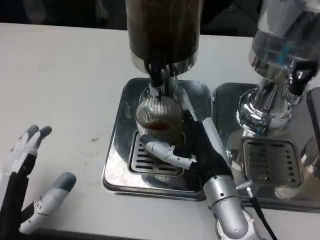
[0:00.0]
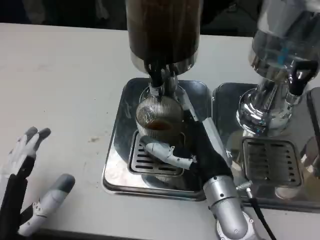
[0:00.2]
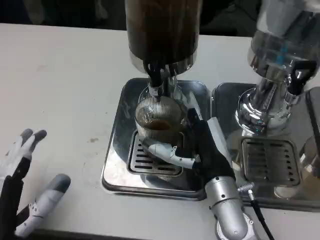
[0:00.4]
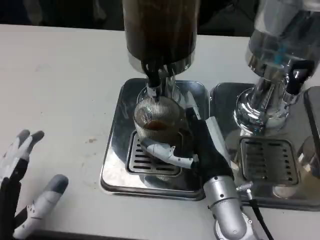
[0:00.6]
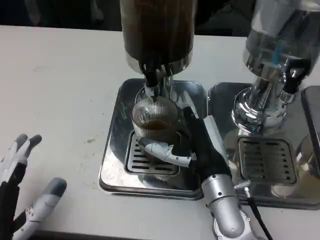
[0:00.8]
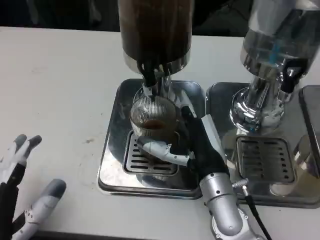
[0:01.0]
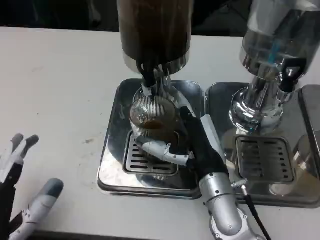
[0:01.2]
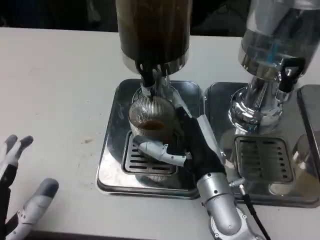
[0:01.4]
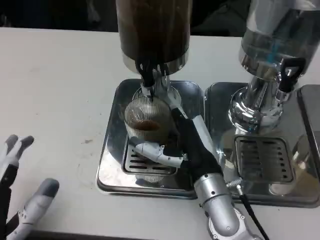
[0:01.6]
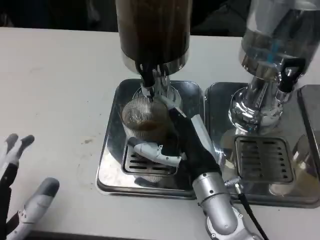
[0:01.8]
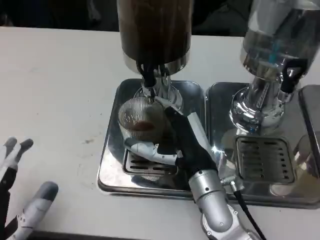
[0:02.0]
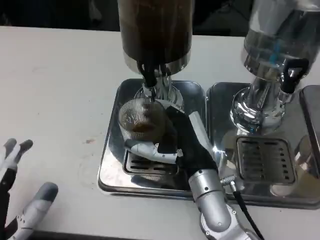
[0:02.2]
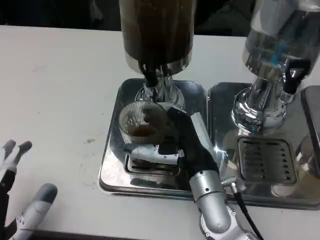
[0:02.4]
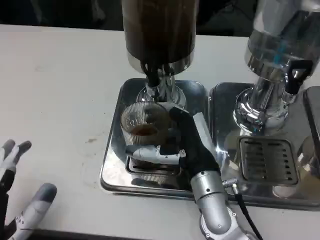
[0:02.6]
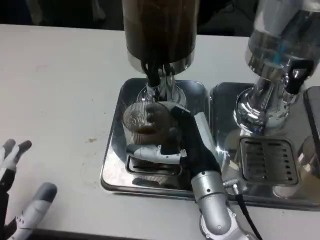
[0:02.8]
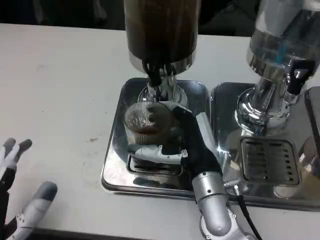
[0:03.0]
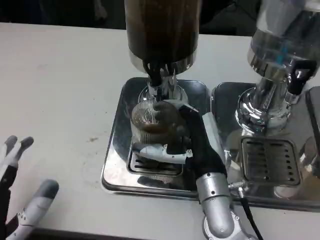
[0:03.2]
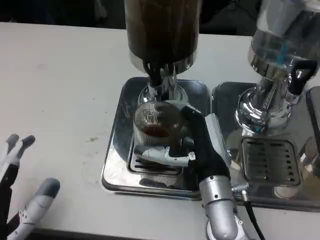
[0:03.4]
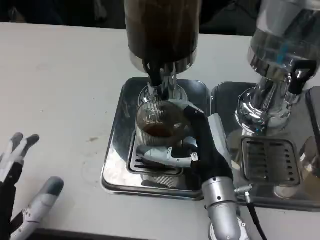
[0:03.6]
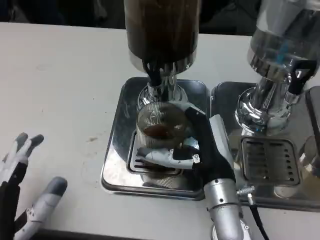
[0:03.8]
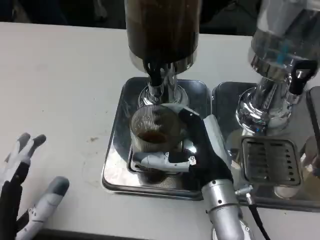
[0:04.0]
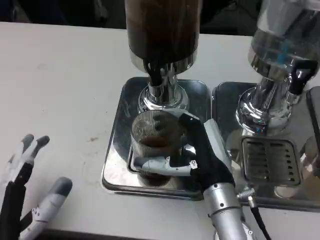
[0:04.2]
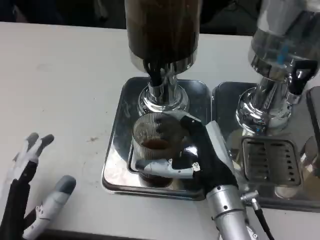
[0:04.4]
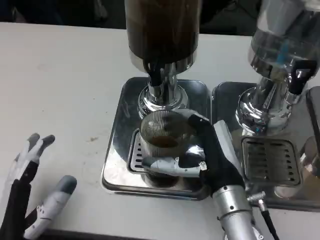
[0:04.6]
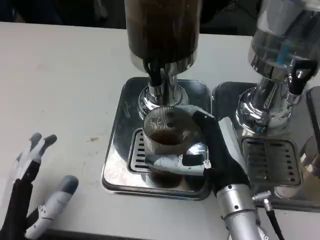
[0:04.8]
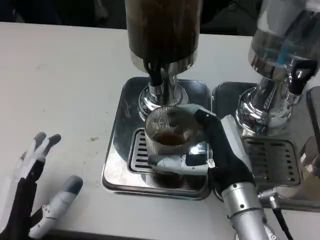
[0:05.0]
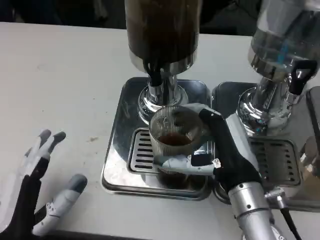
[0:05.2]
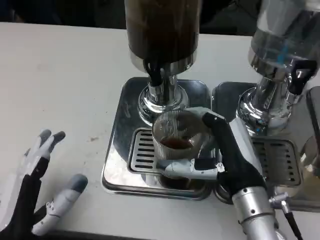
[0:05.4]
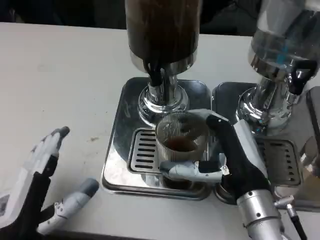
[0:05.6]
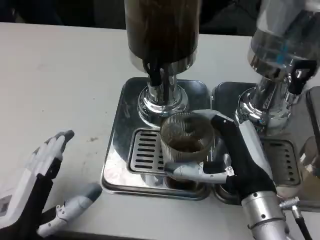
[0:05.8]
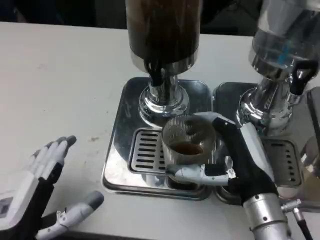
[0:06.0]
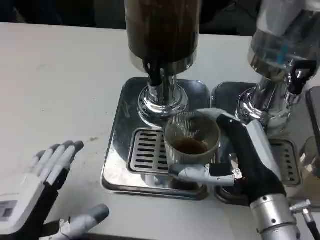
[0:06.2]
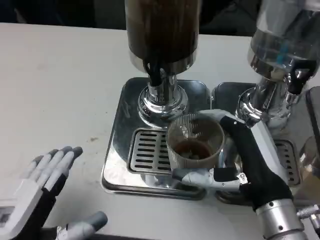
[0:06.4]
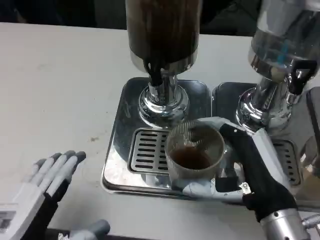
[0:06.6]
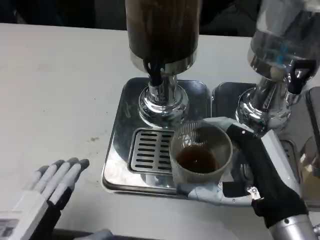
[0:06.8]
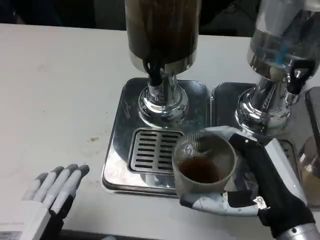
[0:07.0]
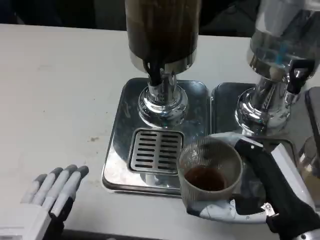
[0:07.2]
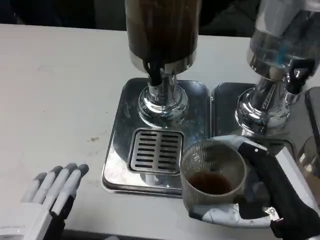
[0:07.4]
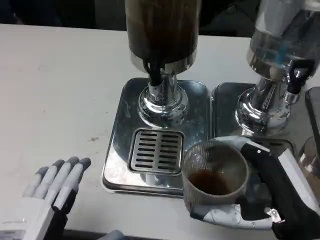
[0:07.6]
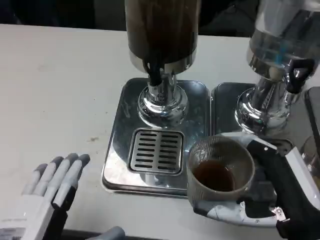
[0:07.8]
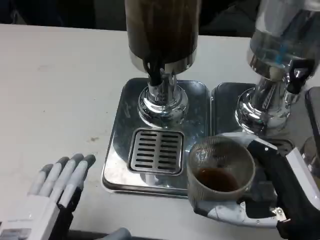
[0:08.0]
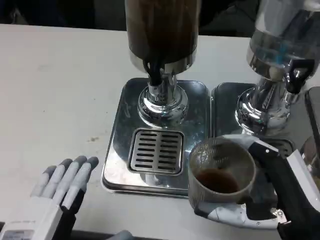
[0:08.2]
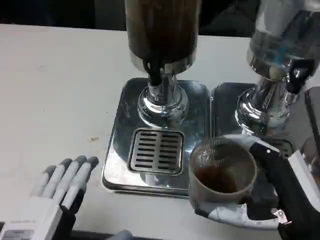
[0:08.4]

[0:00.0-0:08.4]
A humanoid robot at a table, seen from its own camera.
Task of the whole recording: Grasp the cup under the faucet to collect the drink, then remove the cup.
0:04.2 to 0:05.6: The right hand shifts by approximately 5 cm.
0:05.6 to 0:07.0: The two hands go some 5 cm backward.
0:07.0 to 0:08.4: The hands make only small movements.

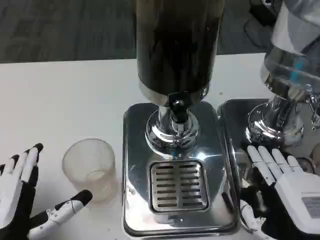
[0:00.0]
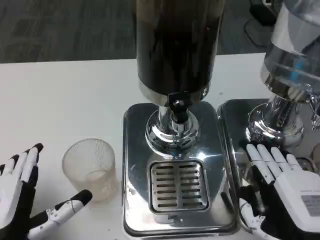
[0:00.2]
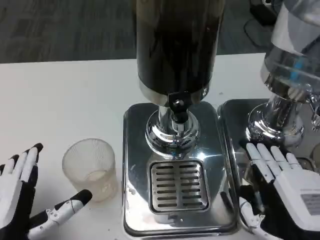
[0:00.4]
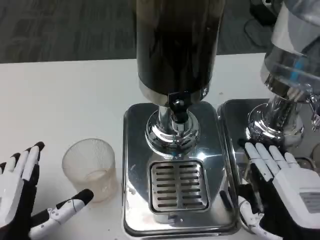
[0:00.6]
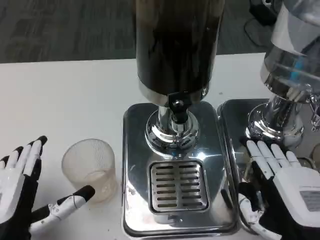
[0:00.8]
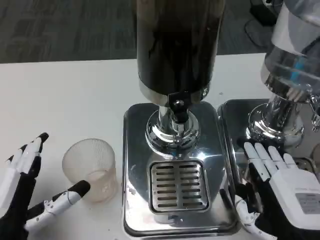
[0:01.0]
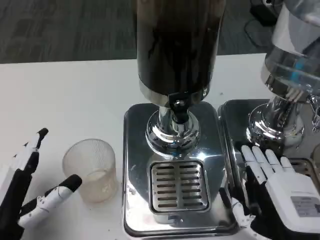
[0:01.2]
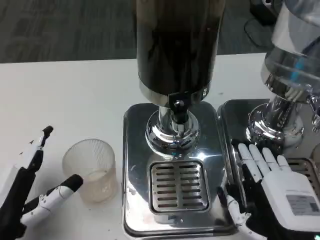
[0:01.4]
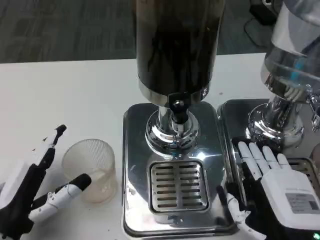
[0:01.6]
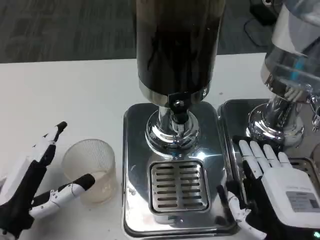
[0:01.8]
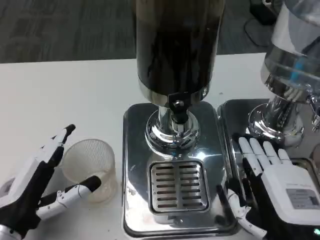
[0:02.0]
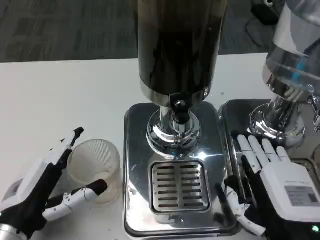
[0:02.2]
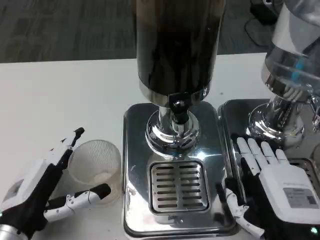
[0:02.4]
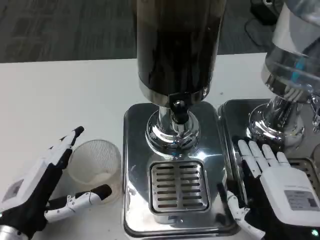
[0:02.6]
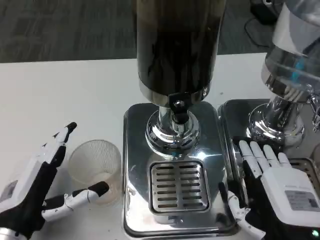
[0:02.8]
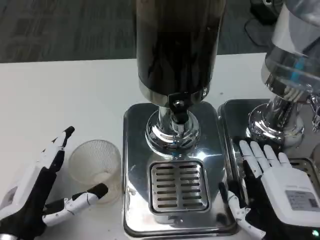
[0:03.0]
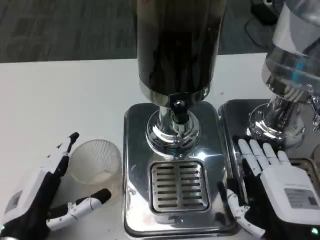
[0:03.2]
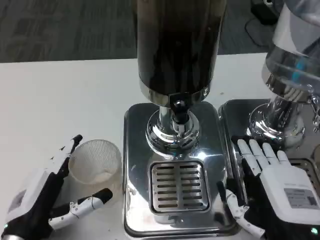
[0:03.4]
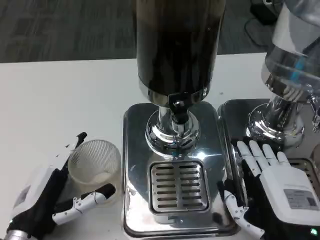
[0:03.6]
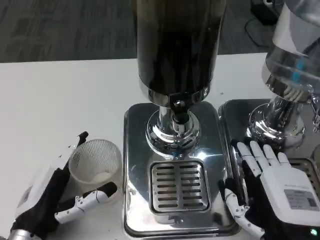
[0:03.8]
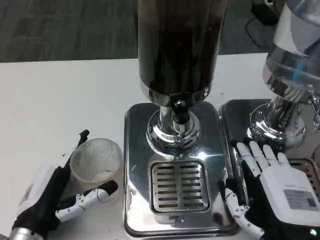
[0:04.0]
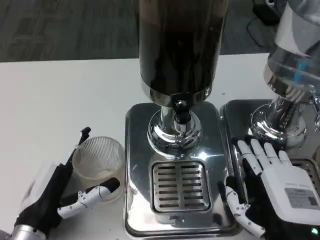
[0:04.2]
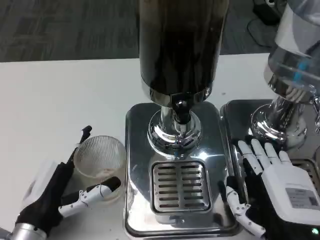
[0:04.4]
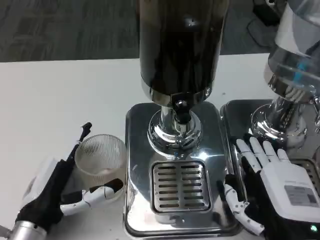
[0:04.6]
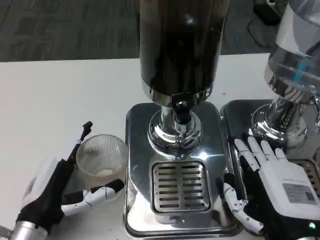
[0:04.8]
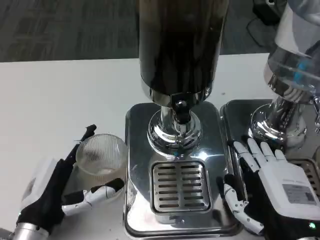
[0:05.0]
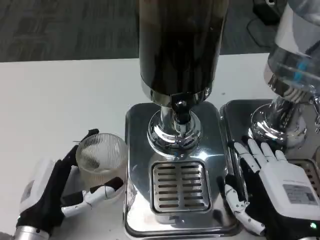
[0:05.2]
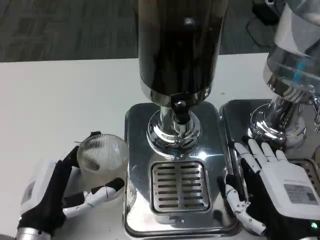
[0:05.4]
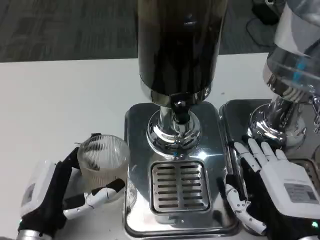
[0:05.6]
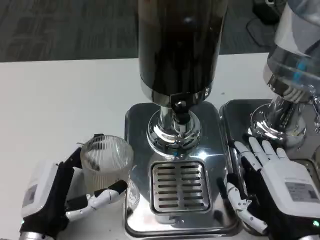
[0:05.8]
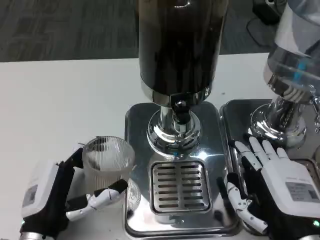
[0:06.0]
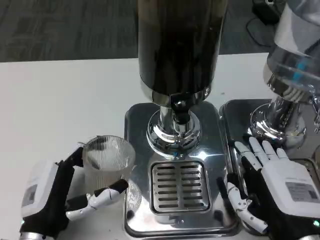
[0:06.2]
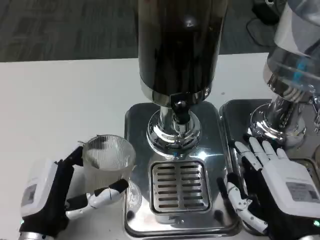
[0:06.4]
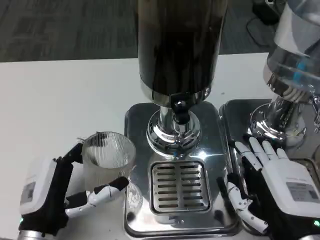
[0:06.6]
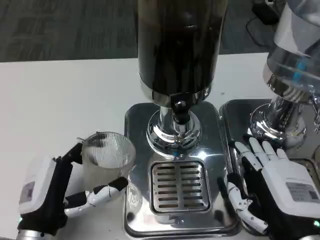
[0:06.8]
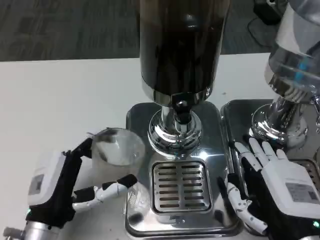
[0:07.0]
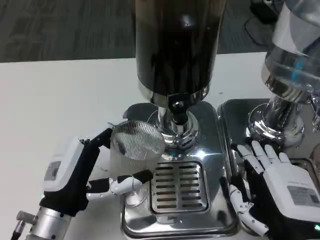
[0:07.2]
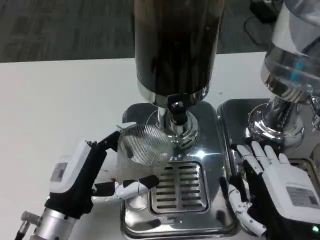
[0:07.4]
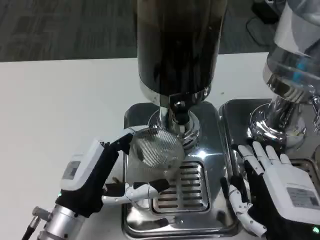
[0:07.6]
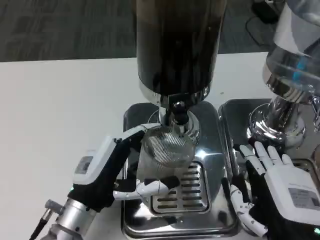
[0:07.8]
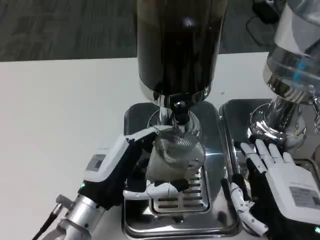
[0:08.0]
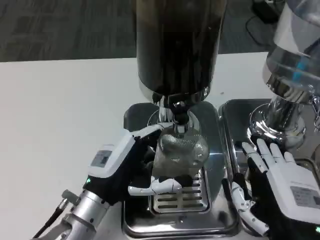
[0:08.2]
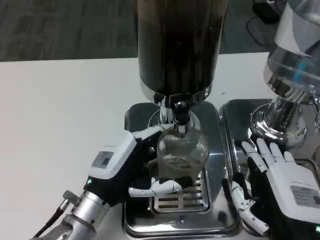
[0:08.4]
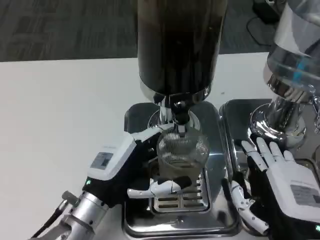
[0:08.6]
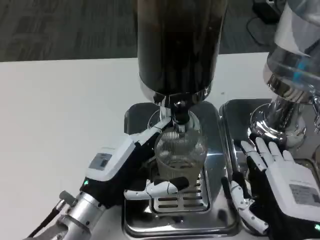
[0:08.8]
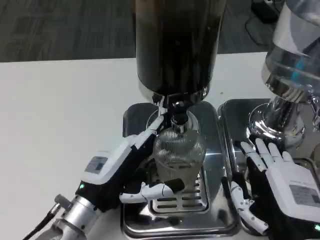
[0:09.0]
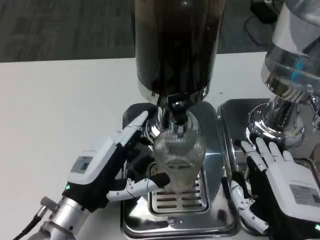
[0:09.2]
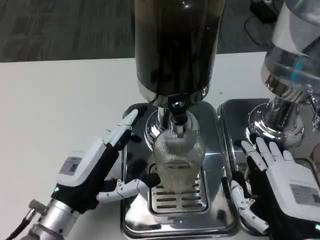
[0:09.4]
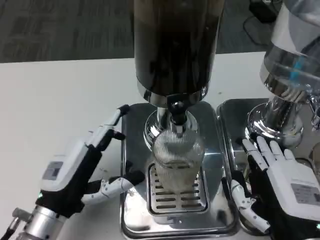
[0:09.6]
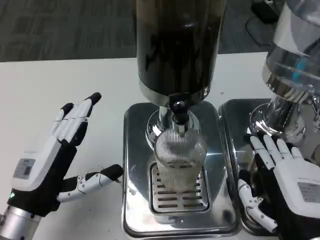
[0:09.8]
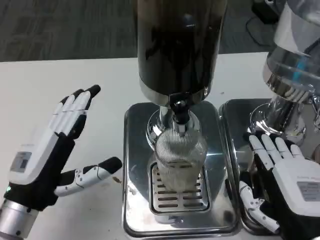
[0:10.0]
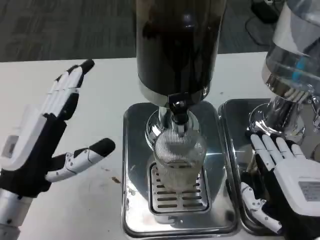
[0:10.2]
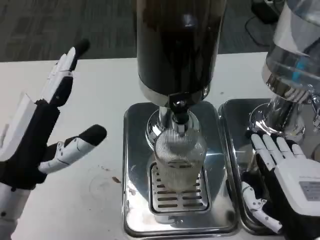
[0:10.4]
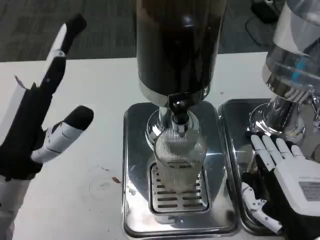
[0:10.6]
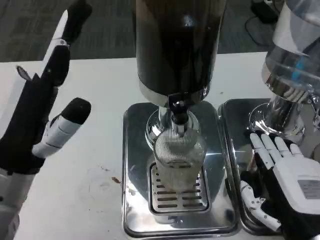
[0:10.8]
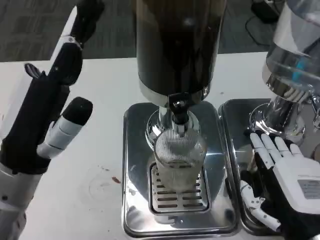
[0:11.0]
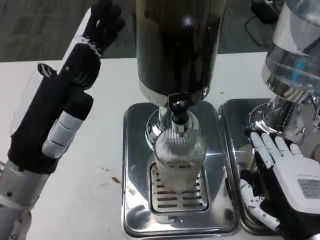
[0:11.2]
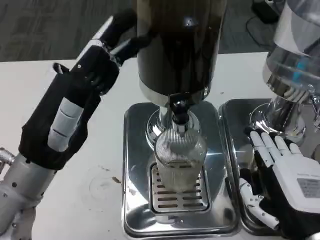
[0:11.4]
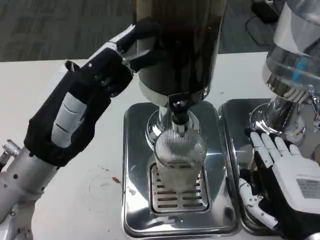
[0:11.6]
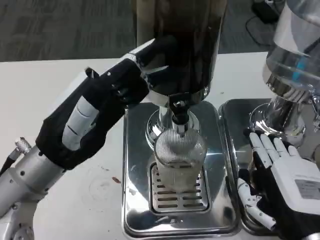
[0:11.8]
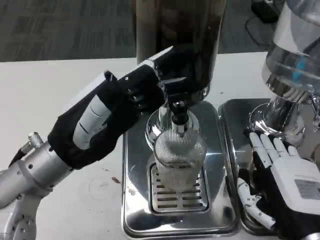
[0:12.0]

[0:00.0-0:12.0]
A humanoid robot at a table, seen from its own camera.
Task of the whole recording: Grasp the cup under the faucet to collect the drink, then remove the cup.
0:00.0 to 0:01.6: The left hand ends up roughly 5 cm from where it was.
0:01.6 to 0:03.0: The hands make only small movements.
0:04.4 to 0:06.0: The hands make only small movements.
0:06.0 to 0:07.6: The left hand moves some 5 cm.
0:09.0 to 0:10.4: The left hand is displaced upward and to the left by roughly 10 cm.
0:10.4 to 0:12.0: The left hand shifts by roughly 5 cm.

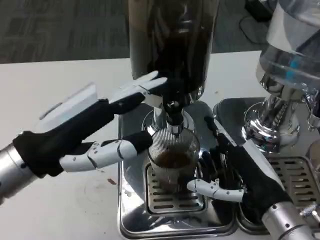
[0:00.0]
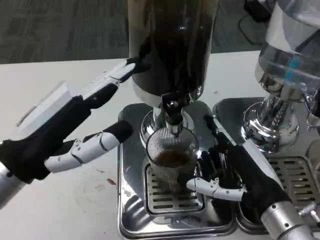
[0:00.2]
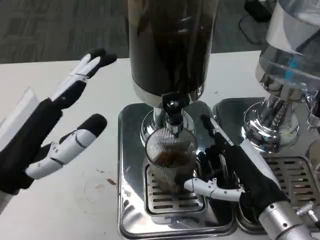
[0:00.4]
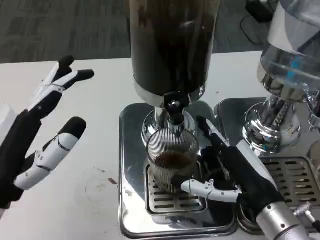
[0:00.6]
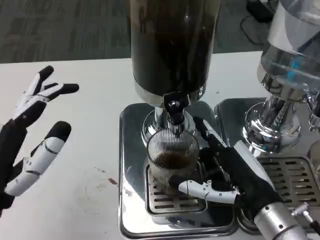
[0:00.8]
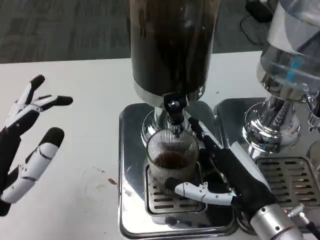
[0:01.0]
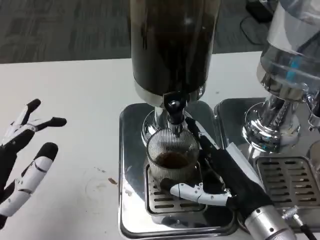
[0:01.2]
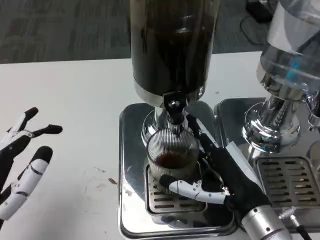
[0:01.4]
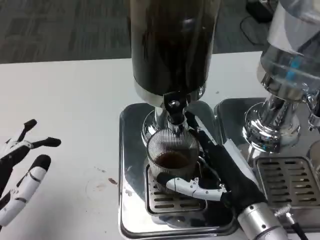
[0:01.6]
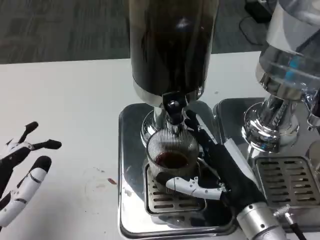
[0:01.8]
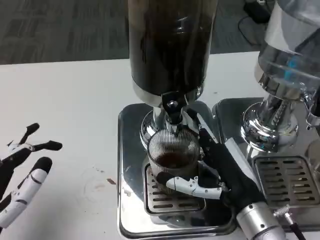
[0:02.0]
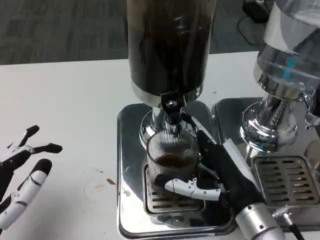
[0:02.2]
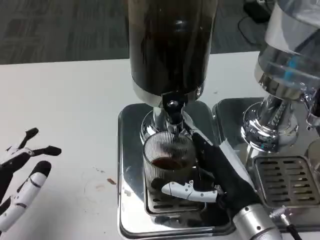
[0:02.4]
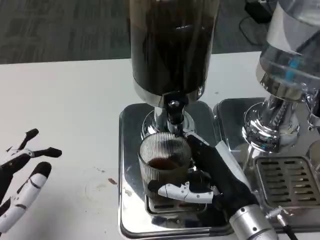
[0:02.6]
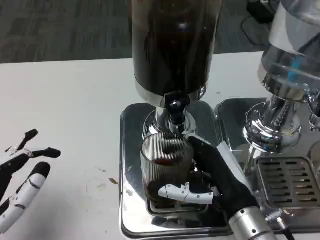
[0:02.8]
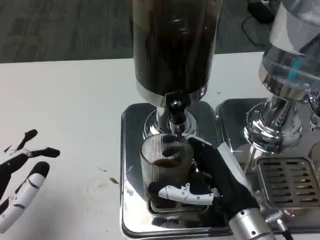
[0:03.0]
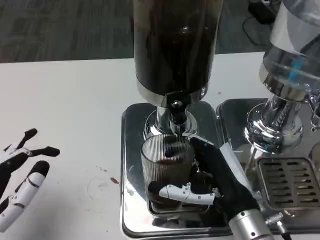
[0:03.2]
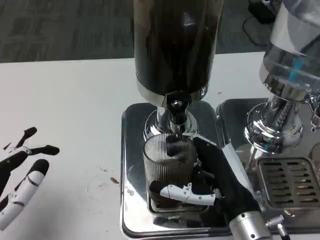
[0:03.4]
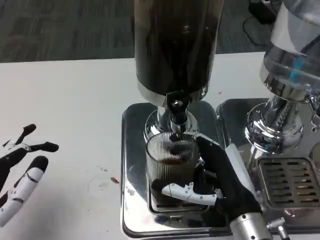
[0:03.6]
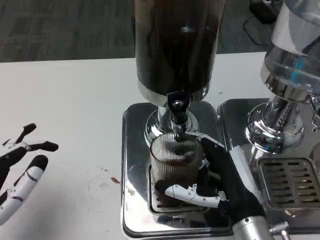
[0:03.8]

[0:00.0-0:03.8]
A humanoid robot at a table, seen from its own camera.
Task of the whole recording: Grasp the cup under the faucet to collect the drink, then remove the cup.
0:00.0 to 0:01.2: The left hand is displaced downward and backward by about 10 cm.
0:01.2 to 0:02.6: The hands stay close to where they were, moving slightly.
